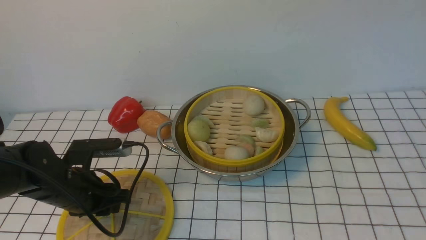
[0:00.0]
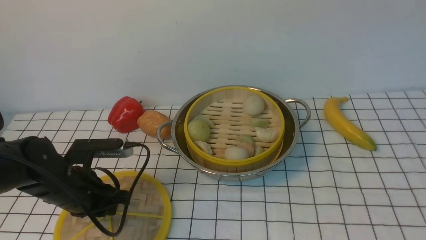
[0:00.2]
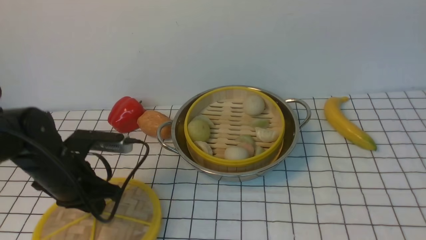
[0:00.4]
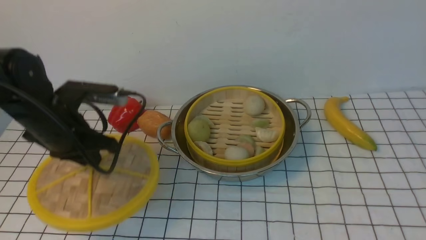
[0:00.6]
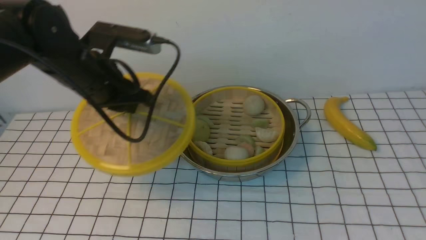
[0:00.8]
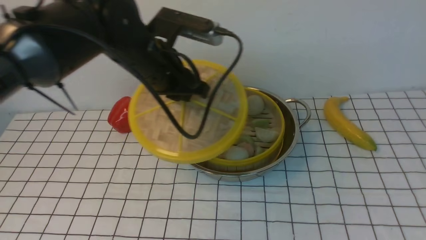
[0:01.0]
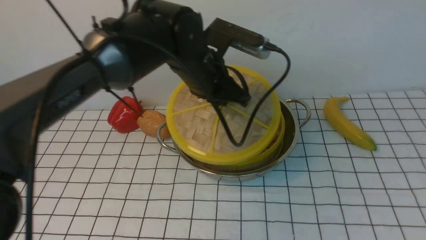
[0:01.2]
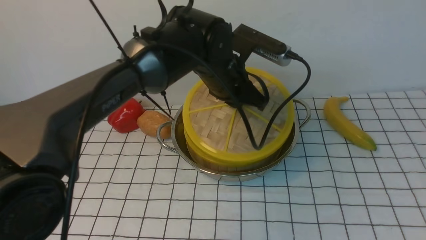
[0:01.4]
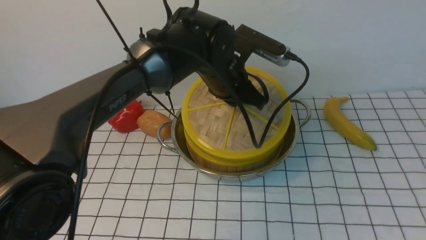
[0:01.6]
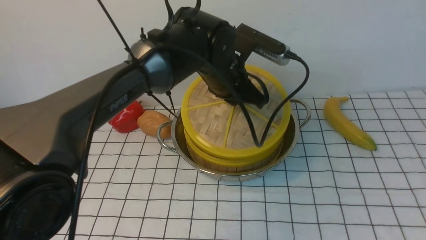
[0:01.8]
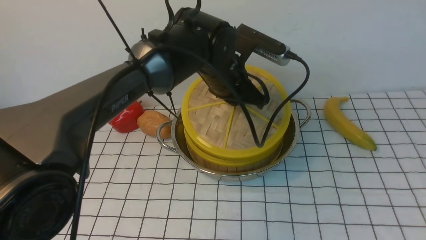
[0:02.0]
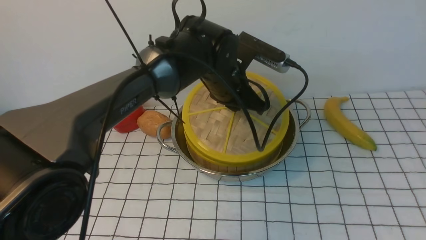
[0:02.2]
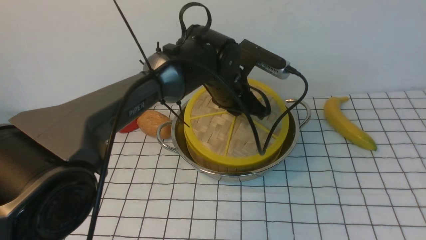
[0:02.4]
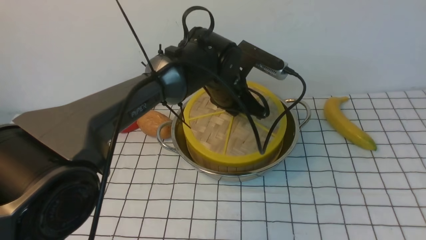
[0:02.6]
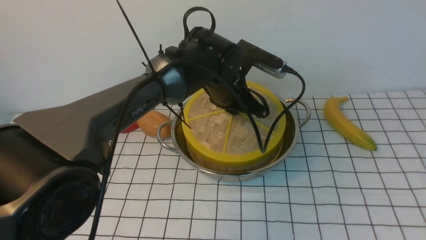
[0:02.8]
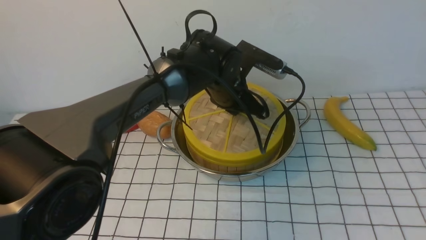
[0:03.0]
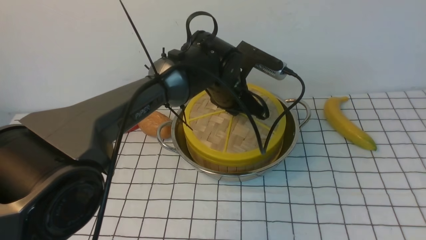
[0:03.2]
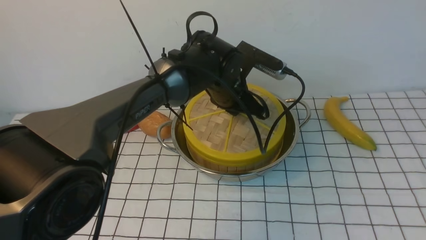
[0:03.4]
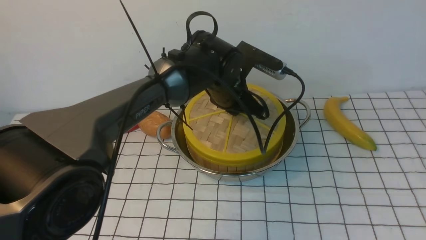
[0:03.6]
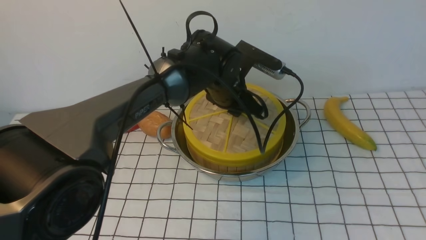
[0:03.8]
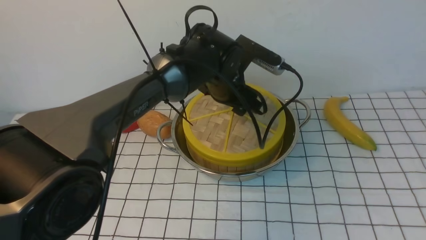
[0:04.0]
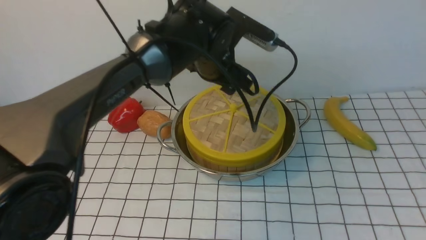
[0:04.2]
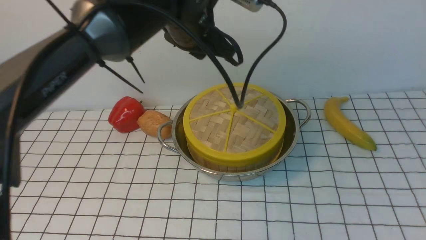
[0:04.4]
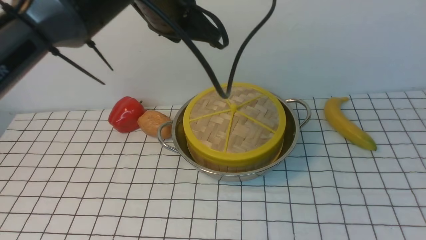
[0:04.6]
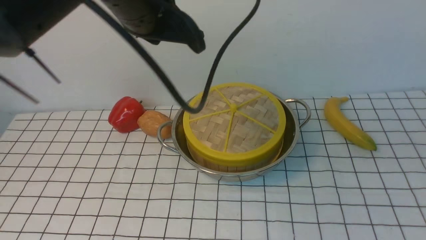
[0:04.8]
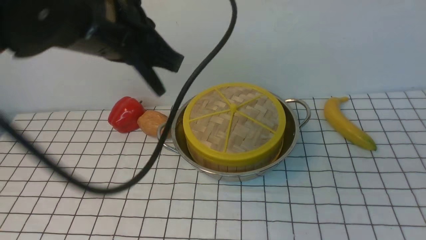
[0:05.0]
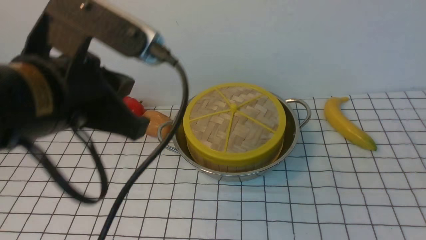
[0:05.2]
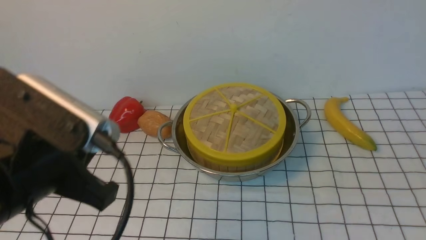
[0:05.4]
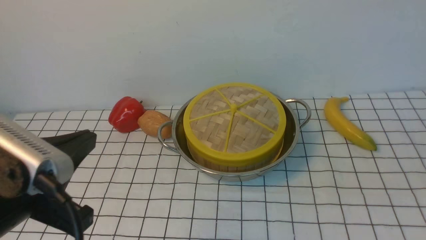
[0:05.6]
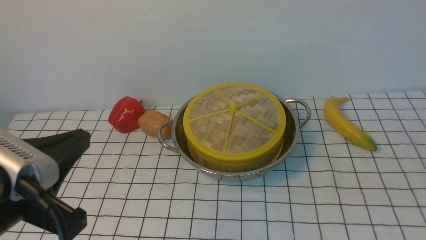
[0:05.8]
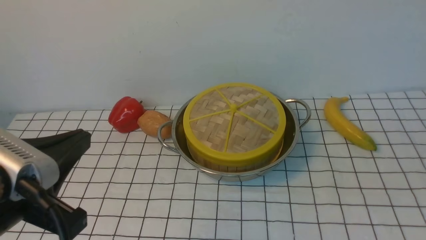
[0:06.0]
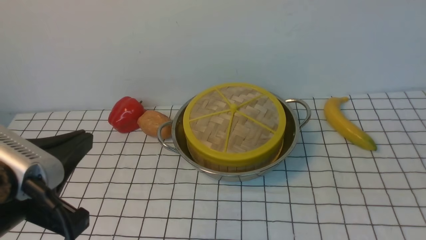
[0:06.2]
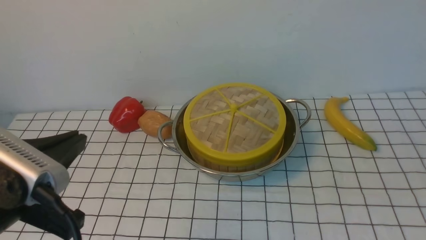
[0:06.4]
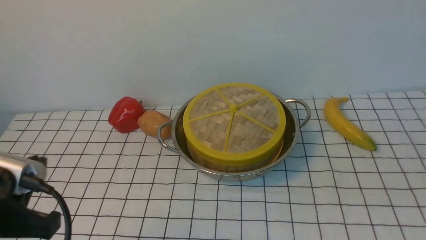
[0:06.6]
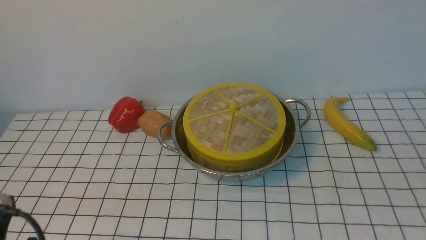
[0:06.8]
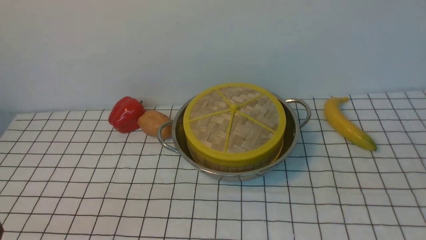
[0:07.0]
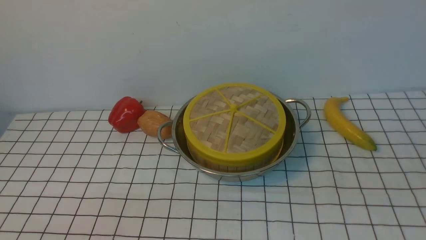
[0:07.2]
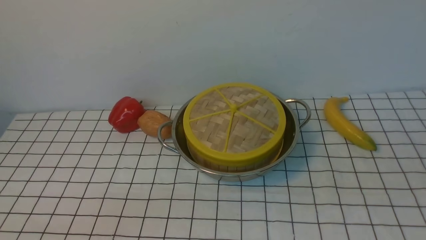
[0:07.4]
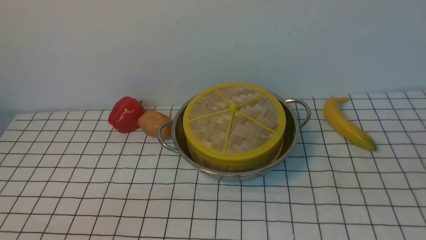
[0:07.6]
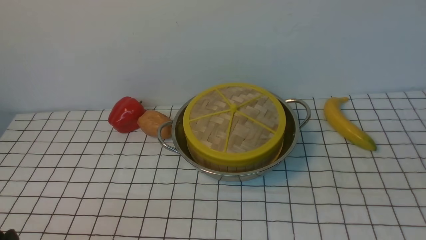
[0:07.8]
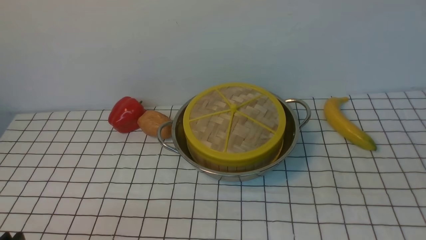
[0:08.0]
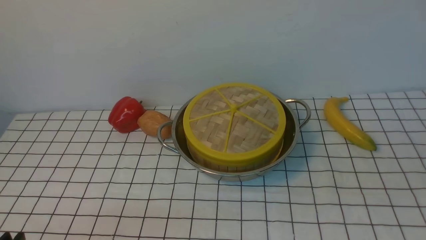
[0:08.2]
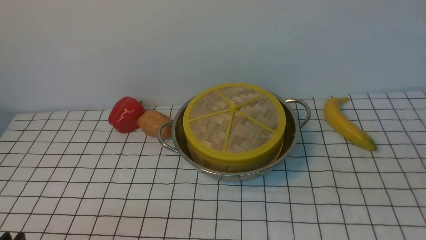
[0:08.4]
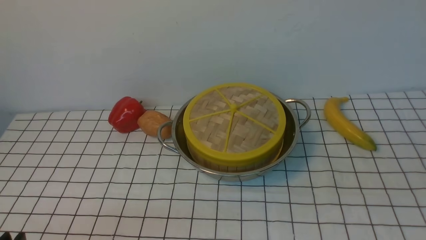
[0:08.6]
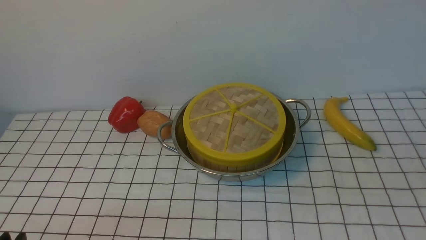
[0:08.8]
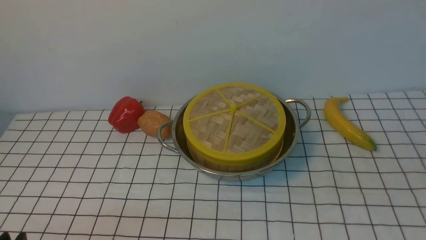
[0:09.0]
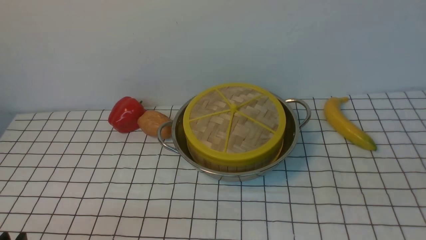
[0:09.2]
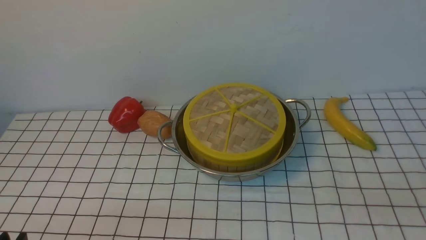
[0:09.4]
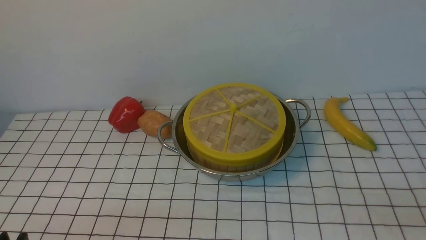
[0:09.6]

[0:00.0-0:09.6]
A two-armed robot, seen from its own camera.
Task of the whole recording: place the steamer in the pot on the white tablecloth, and put the lid on the steamer.
Step, 0:00.6 to 0:04.2: use the left arm to place the steamer lid on the steamer.
0:00.0 to 0:01.6: The left gripper travels to the right, forward and upward by roughly 30 cm. The right gripper heads backward and downward, covering some 15 cm.
0:03.2 to 0:04.8: The left gripper heads upward, backward and to the left, covering some 20 cm, and closes up, while the right gripper shifts by roughly 5 cm, and closes up.
0:04.8 to 0:06.4: The right gripper is displaced downward by approximately 10 cm. Meanwhile the left gripper shifts roughly 25 cm backward and to the left.
0:06.4 to 0:08.0: The left gripper shifts some 15 cm downward, backward and to the left.

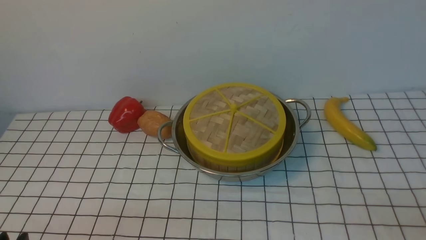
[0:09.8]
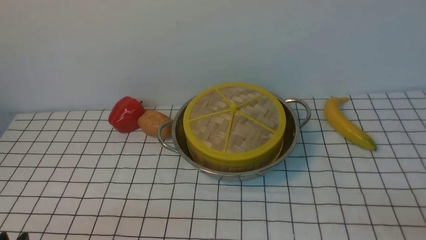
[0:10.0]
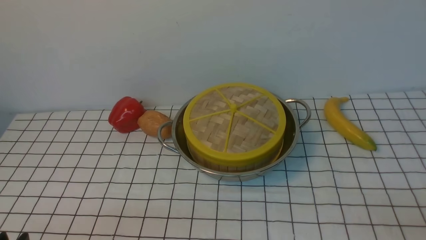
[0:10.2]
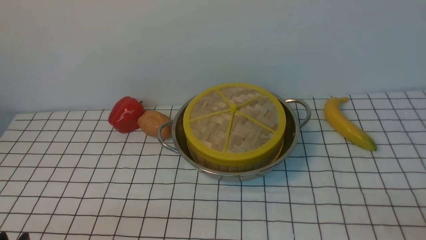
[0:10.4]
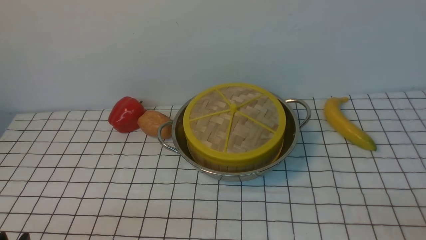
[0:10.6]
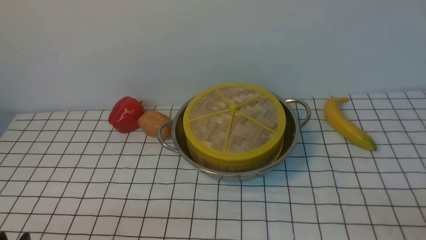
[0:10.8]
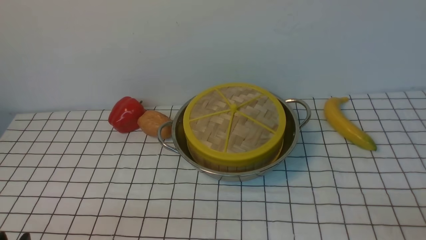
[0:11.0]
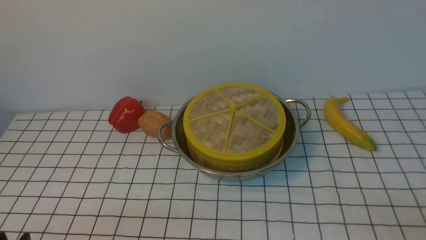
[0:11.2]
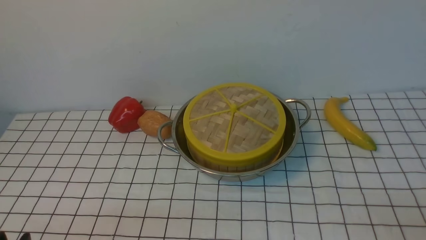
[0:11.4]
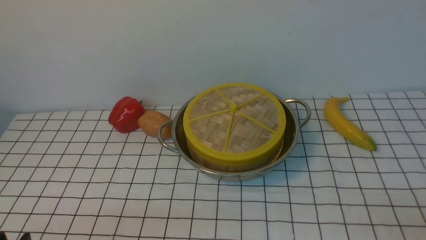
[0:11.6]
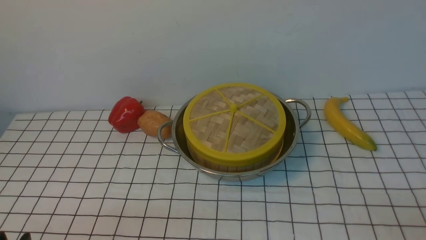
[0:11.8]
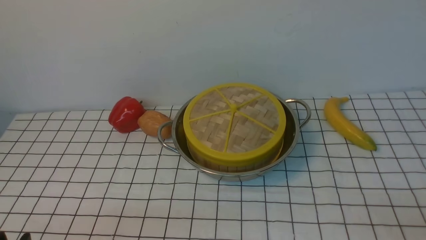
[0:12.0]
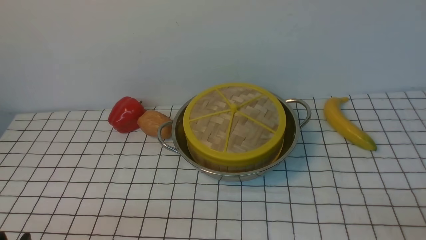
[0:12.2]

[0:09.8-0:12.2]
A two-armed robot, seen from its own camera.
Task of the whole recording: place the steamer in the pot on the white tablecloth, and put the lid on the steamer.
0:09.8 to 0:12.2: Both grippers stay about where they are.

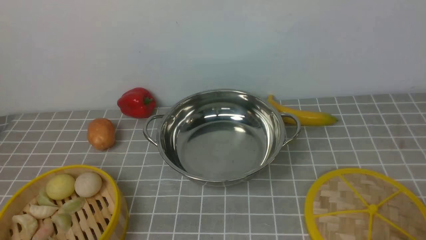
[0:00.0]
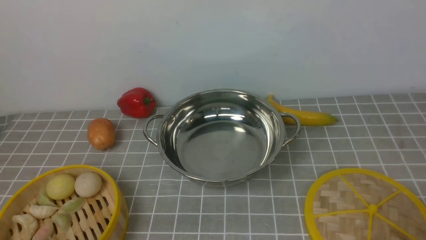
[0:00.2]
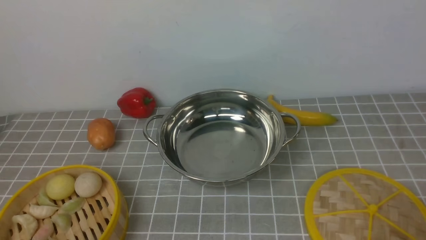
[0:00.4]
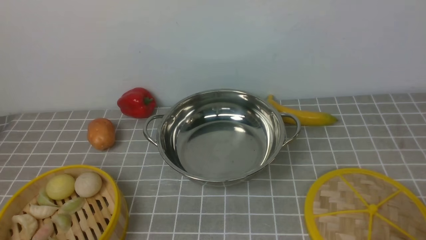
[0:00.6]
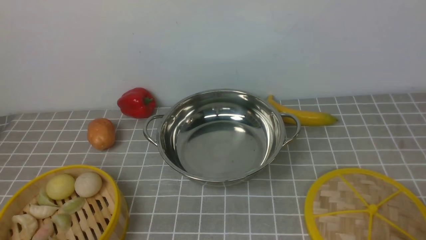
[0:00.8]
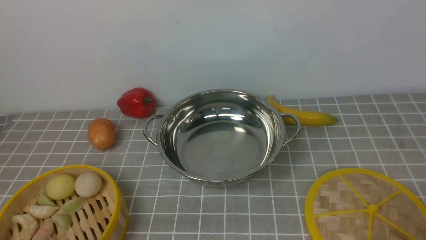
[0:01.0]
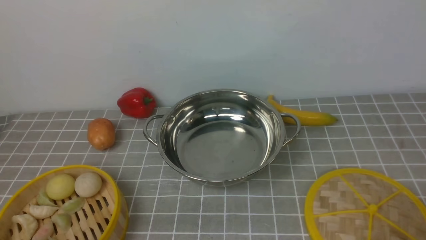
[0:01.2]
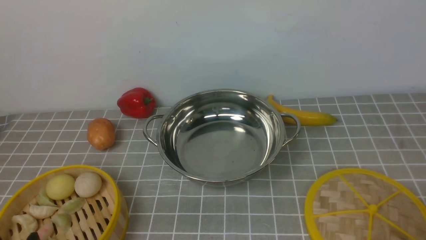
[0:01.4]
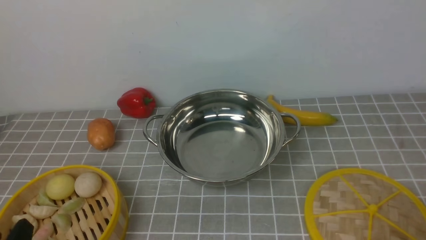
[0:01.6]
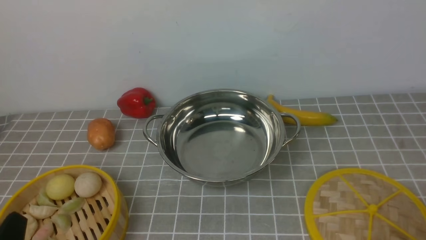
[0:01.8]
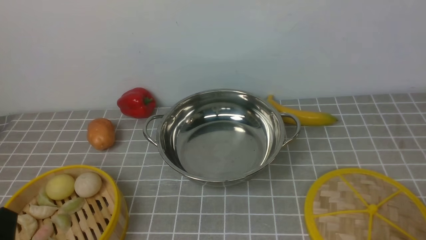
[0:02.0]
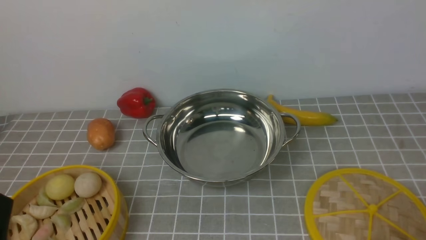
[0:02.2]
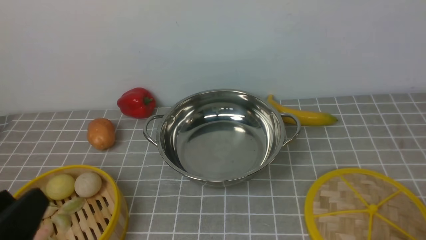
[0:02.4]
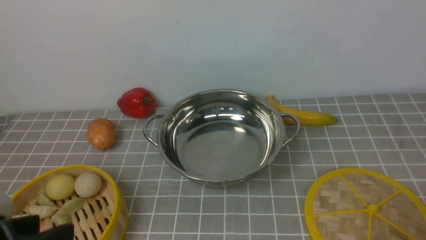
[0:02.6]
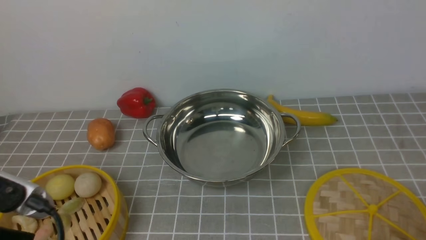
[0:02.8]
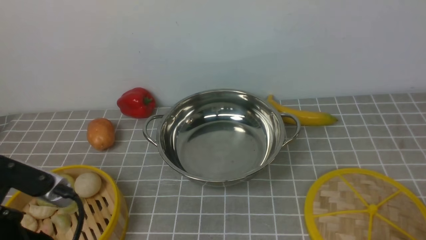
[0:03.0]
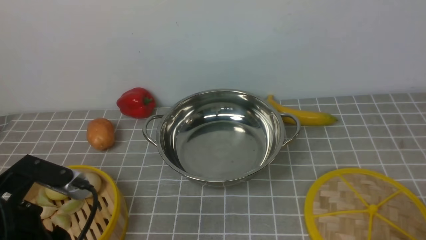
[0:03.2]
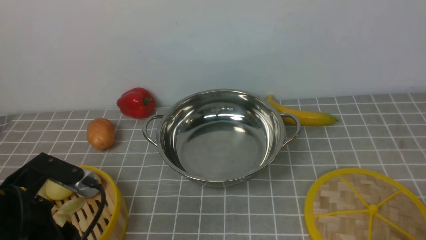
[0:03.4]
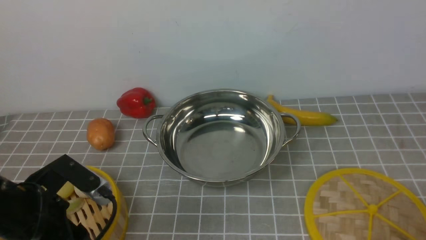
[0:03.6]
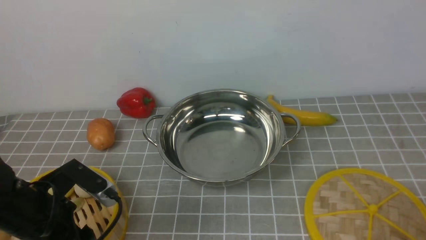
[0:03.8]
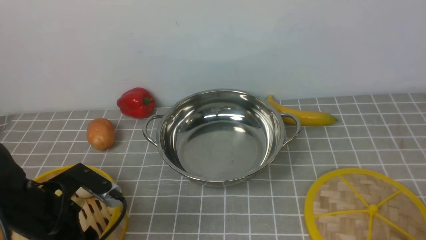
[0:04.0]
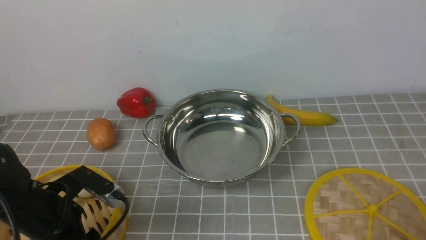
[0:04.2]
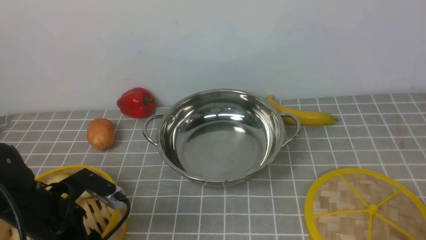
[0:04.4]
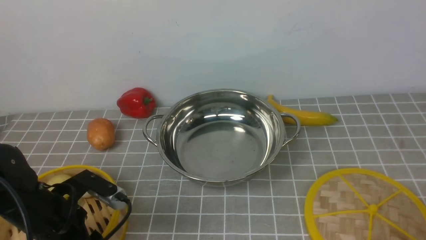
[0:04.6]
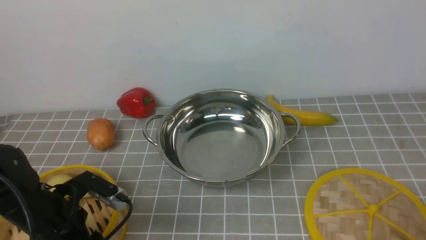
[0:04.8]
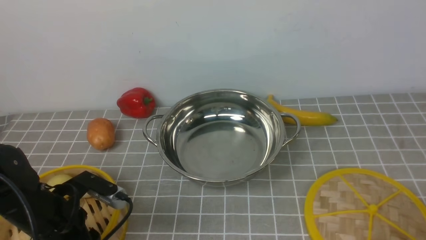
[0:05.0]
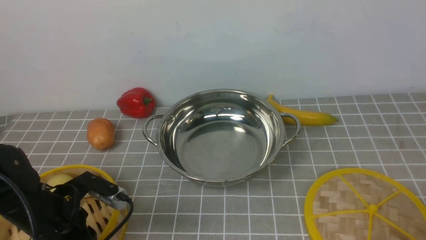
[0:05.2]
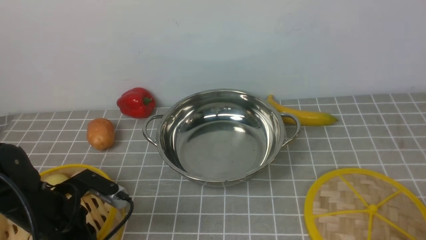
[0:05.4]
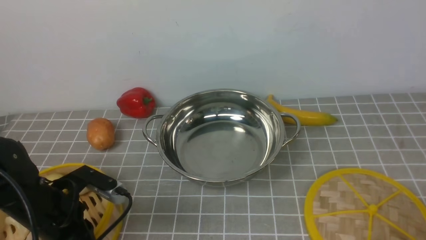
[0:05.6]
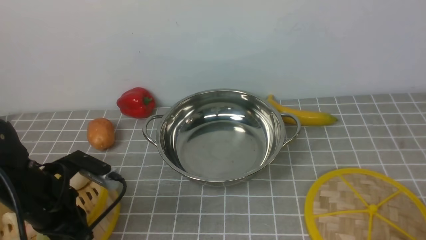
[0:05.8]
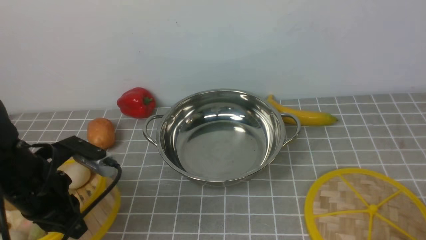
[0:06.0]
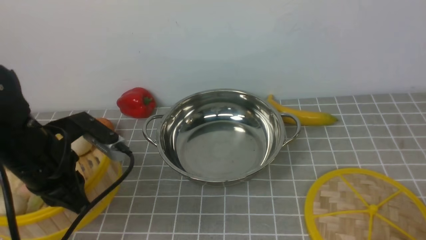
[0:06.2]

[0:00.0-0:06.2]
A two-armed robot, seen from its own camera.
Task of the whole recording: place the steamer in the pot on the grey tablecloth, and put the lid on the steamer.
Step, 0:00.0 to 0:05.8: use the left arm to lift the steamer closest to it.
0:01.6 to 0:03.2: The left gripper heads forward and upward, covering approximately 10 cm.
0:03.2 to 0:04.6: The left gripper shifts approximately 10 cm downward and forward.
0:04.6 to 0:06.2: The left gripper travels upward by approximately 10 cm, and closes its fingers.
